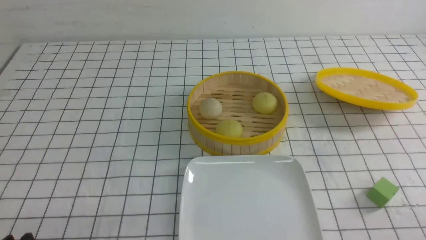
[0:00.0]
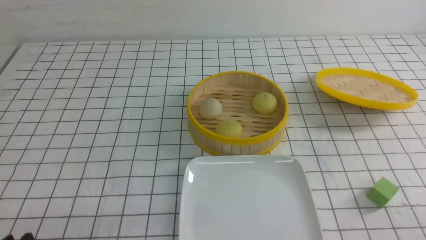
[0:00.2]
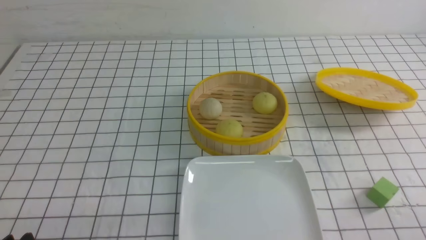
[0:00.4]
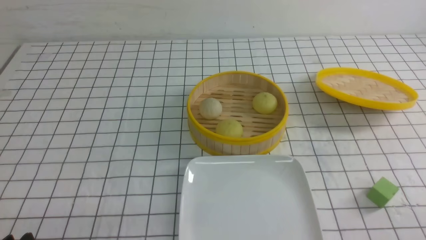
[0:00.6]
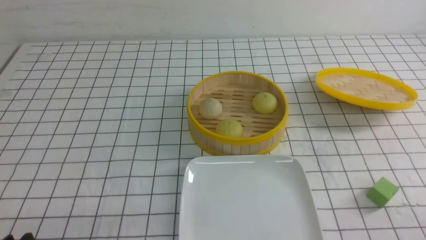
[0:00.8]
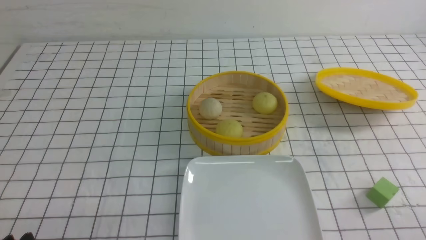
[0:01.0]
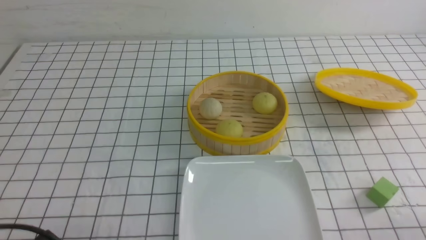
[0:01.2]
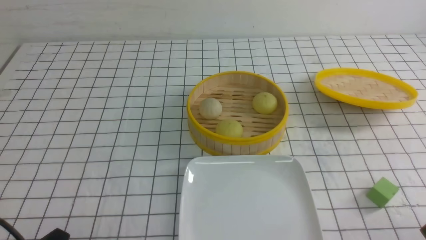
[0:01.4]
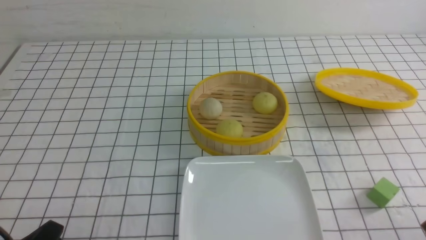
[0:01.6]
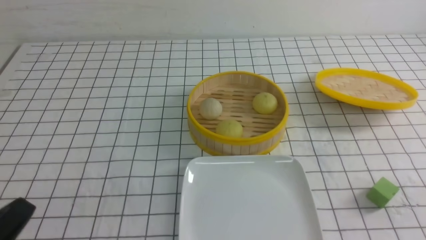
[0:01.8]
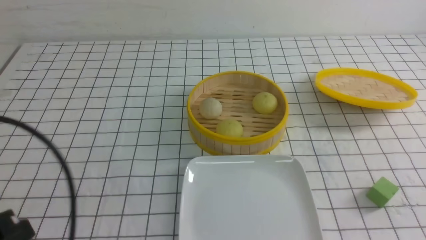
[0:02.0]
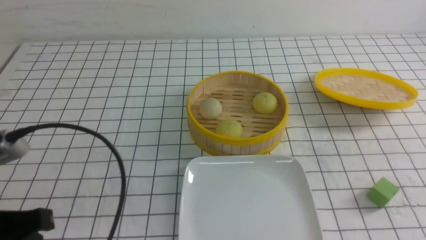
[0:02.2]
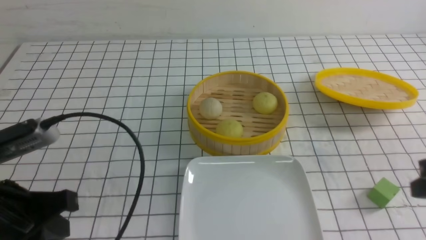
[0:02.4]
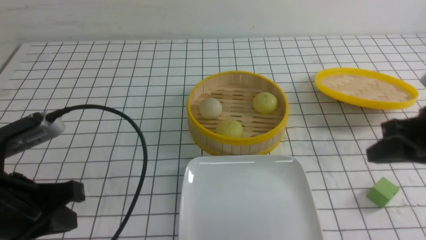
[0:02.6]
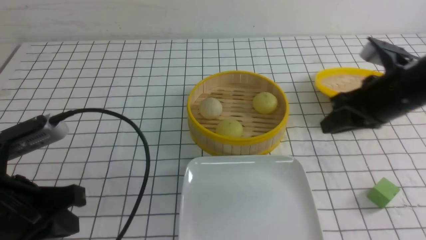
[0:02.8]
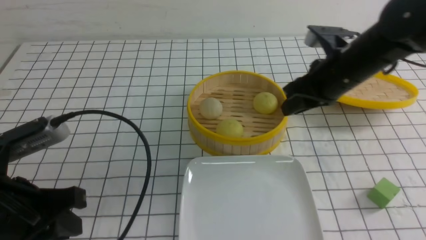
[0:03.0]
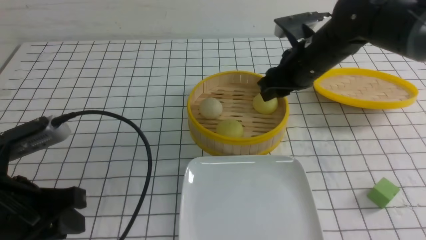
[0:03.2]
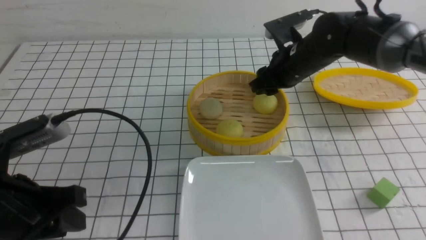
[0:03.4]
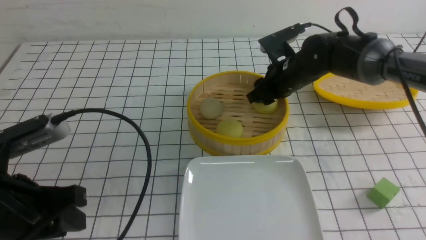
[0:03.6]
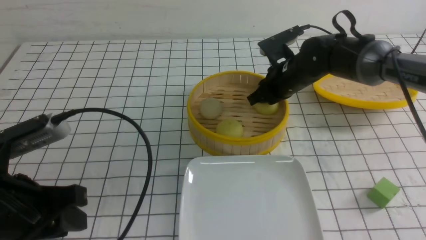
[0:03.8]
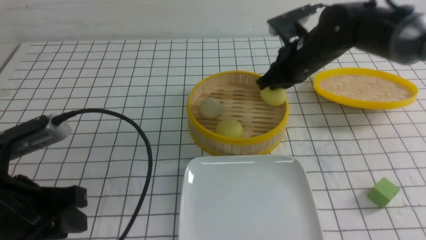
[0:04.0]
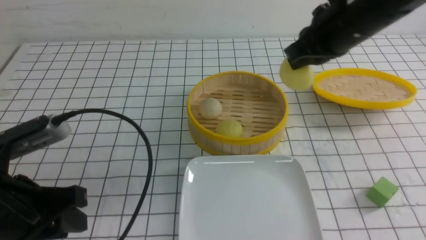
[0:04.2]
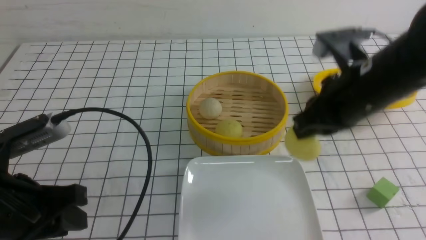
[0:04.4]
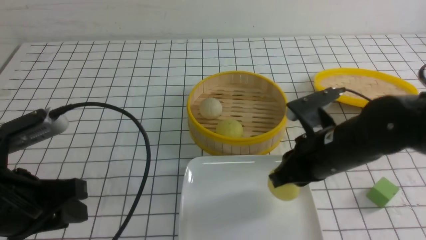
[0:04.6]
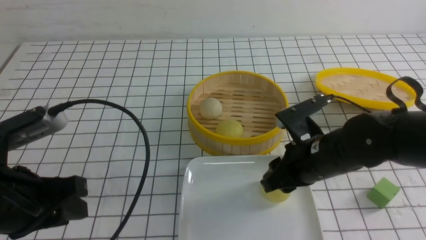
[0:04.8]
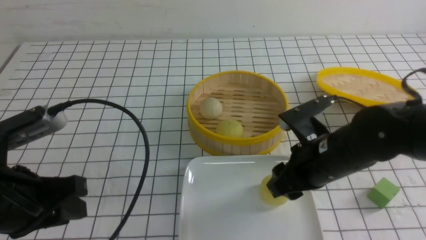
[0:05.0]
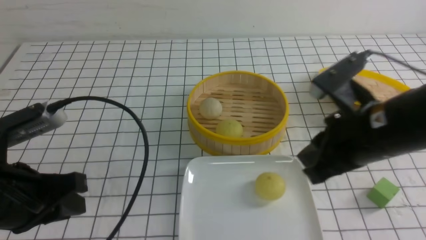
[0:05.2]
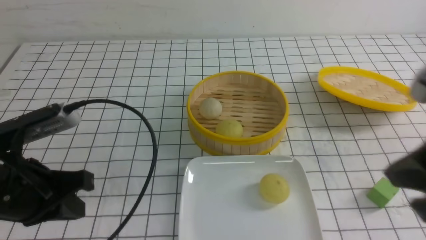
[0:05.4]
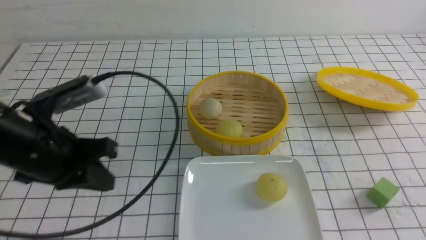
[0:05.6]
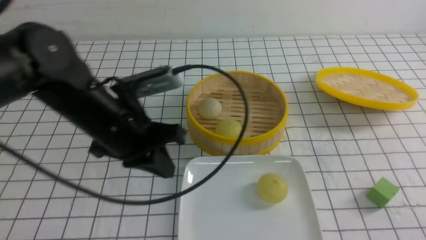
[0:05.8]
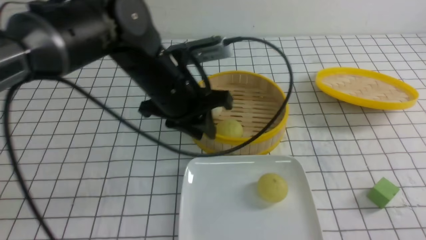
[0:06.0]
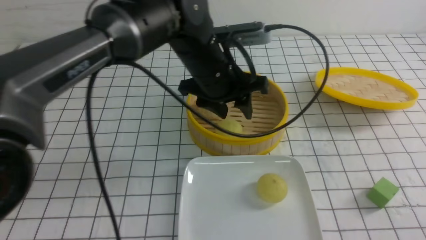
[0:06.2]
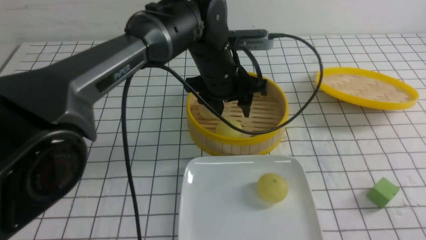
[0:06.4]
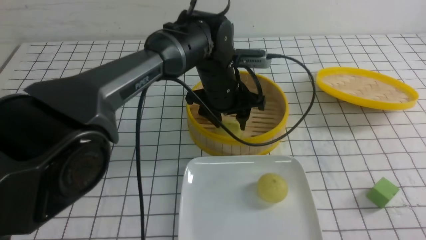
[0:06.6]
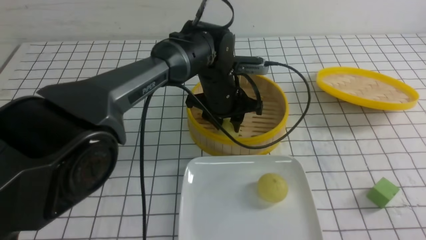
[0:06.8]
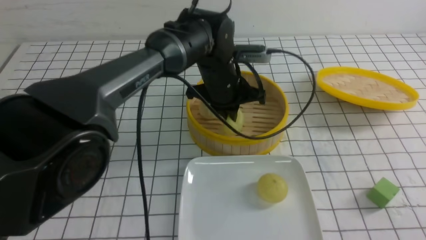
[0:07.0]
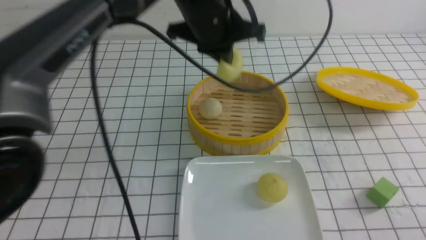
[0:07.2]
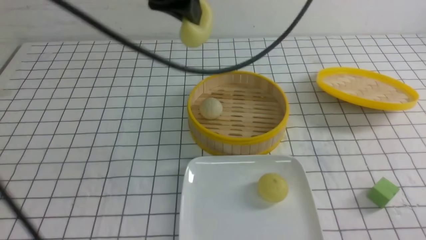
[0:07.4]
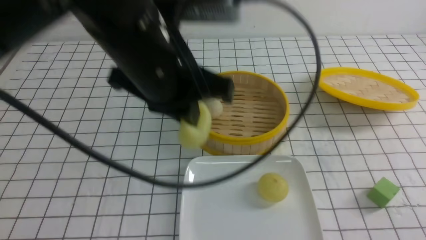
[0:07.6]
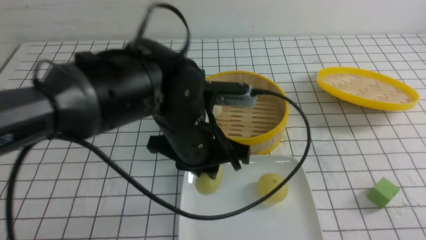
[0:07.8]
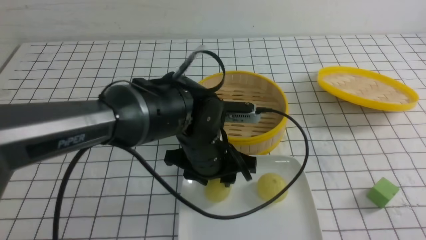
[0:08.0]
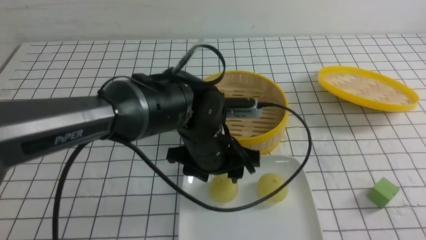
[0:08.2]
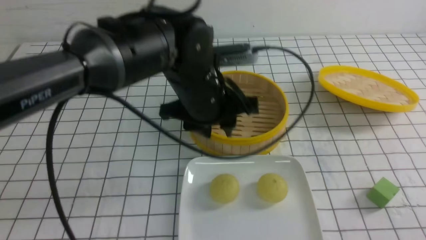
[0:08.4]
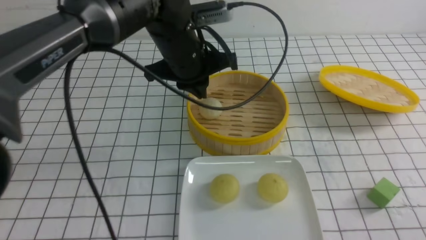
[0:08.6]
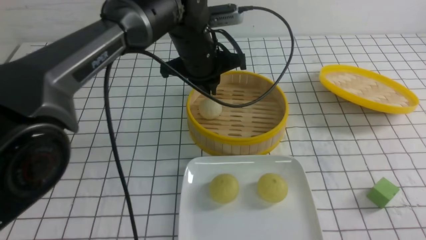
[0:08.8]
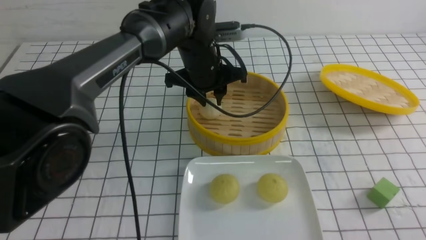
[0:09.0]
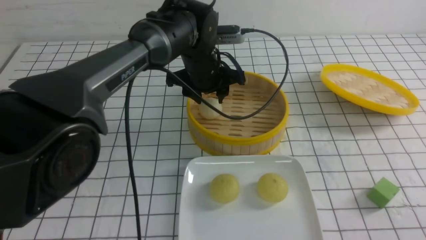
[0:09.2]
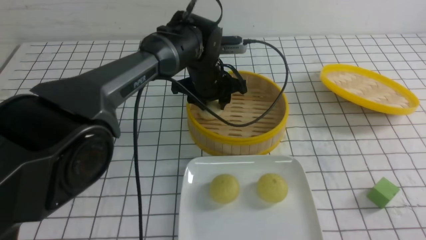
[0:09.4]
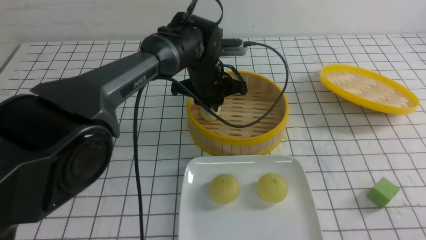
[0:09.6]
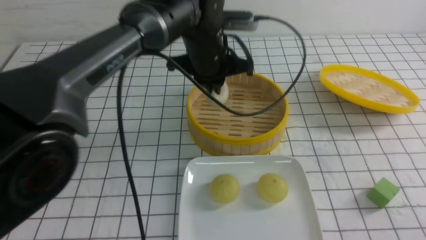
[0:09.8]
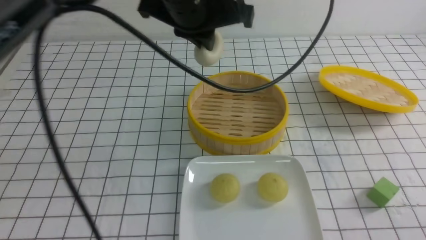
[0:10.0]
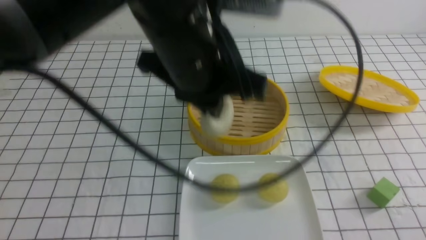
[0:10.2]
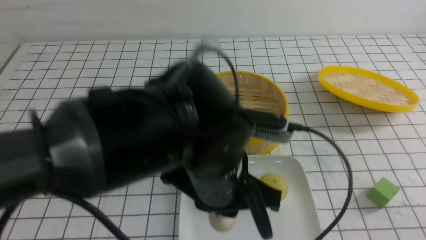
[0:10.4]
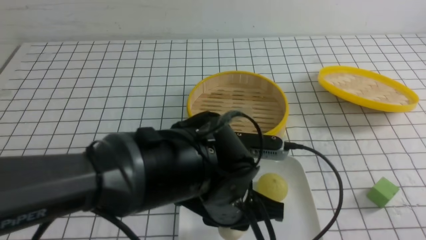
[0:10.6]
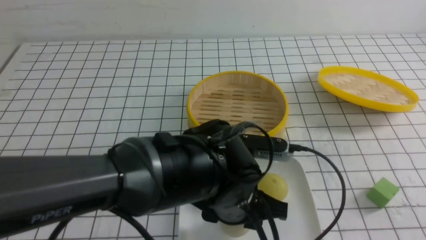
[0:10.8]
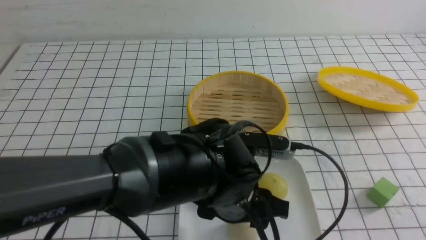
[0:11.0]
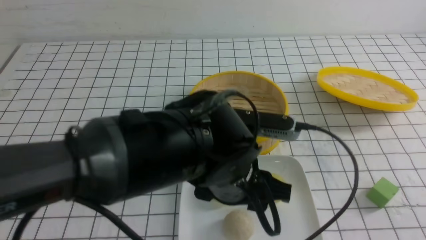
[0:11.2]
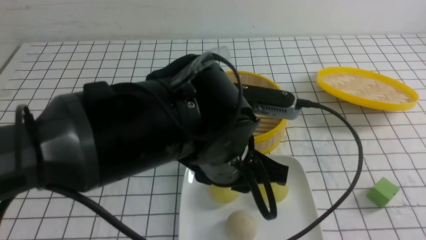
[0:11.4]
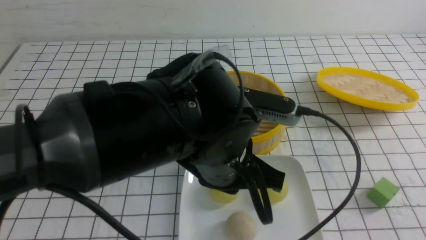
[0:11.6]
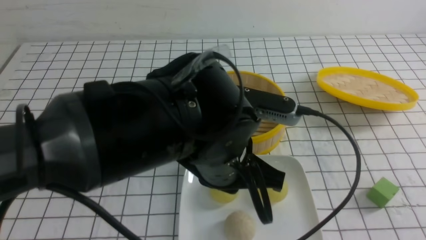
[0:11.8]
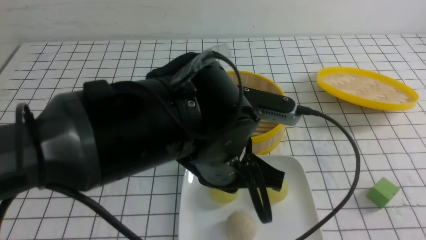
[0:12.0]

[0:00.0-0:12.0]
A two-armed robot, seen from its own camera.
Step, 0:00.0 to 0:04.0: use the right arm to grab the steamed stuffed bun that is closest to it.
Step, 0:04.2 to 0:05.2: use the right arm to put the steamed stuffed bun into the plate.
Step, 0:05.4 to 0:06.8: use the left arm to grab the steamed stuffed bun that is closest to it.
Step, 0:07.2 to 0:08.2: use the left arm to put the steamed stuffed bun into the plate.
Step, 0:08.4 to 0:09.8: use the left arm to grab the steamed stuffed bun that is closest to it.
Step, 0:10.0 to 0:11.4: use the left arm to put the steamed stuffed bun into the plate.
0:01.6 to 0:03.0: The left gripper heads forward and upward, covering some 10 cm, and closes and opens again. The right gripper moves forward, about 30 cm, and closes, then reopens.
0:03.0 to 0:04.4: The right gripper moves backward, some 5 cm, and closes its fingers.
0:04.4 to 0:06.0: The left gripper goes roughly 25 cm to the right and forward, and closes and opens again. Meanwhile the right gripper heads backward and to the right, covering about 25 cm, and opens, then closes again.
0:06.0 to 0:07.6: The left gripper moves up and down over about 20 cm, changing direction 2 times, and closes up.
0:07.6 to 0:09.0: The left gripper goes about 15 cm forward and downward, and opens up.
0:09.0 to 0:10.4: The left gripper travels backward by approximately 20 cm, and closes its fingers.
0:10.4 to 0:12.0: The right gripper closes up. The left gripper reaches some 5 cm downward, then returns, and opens, then closes once more.

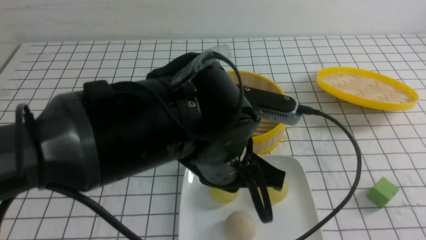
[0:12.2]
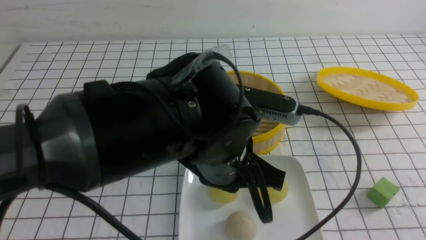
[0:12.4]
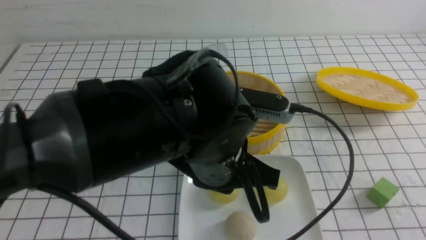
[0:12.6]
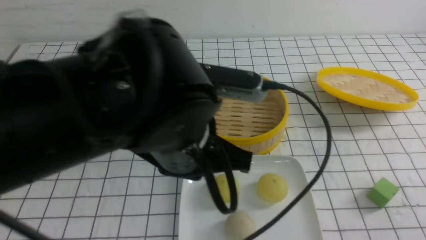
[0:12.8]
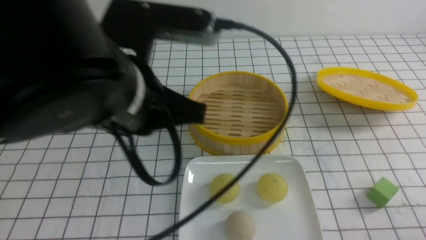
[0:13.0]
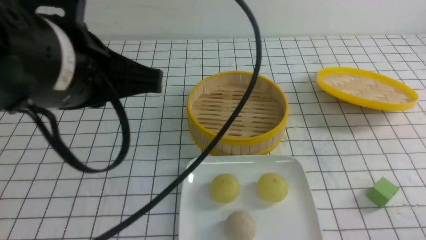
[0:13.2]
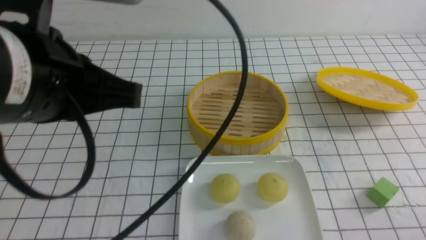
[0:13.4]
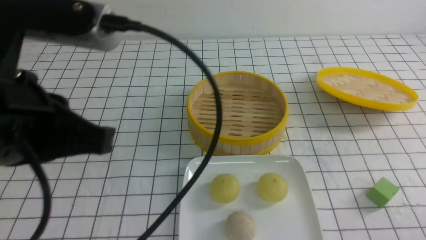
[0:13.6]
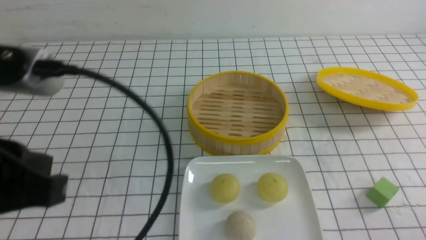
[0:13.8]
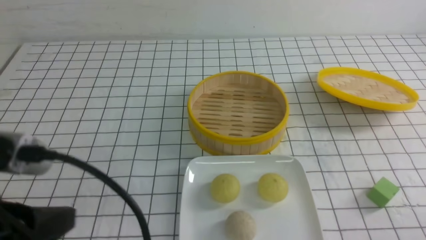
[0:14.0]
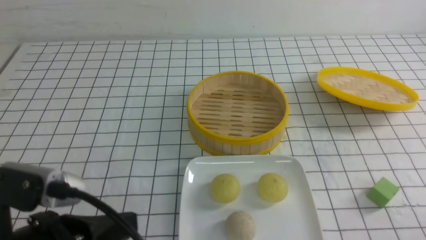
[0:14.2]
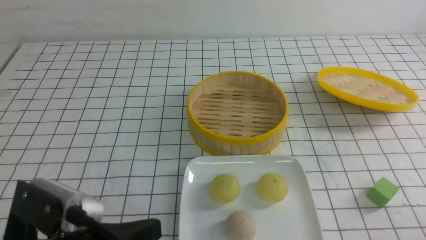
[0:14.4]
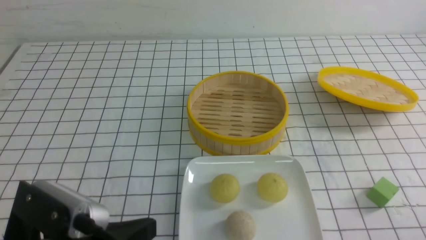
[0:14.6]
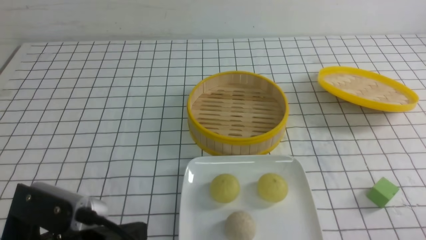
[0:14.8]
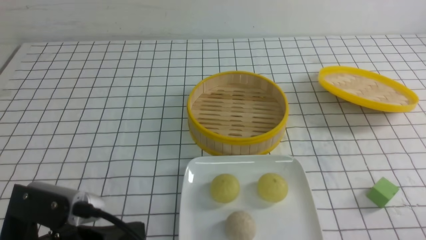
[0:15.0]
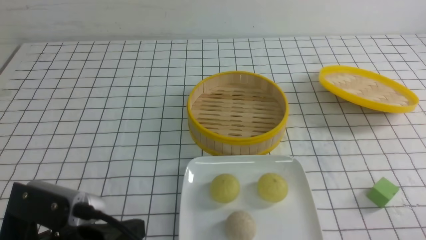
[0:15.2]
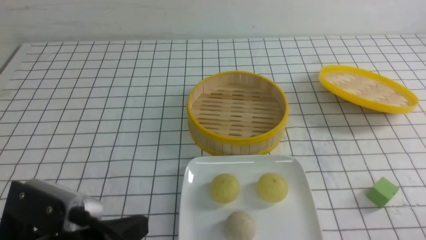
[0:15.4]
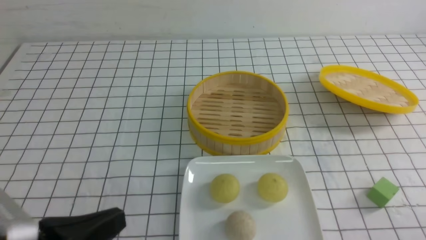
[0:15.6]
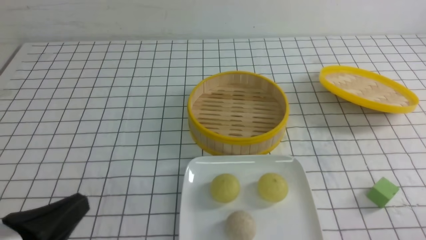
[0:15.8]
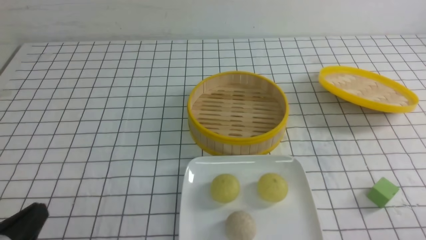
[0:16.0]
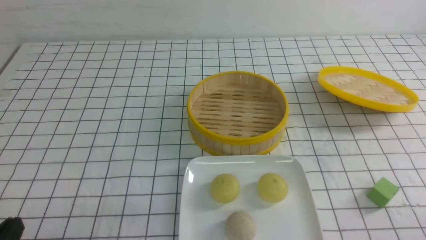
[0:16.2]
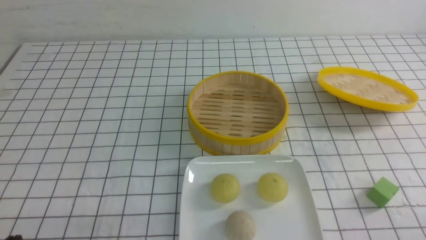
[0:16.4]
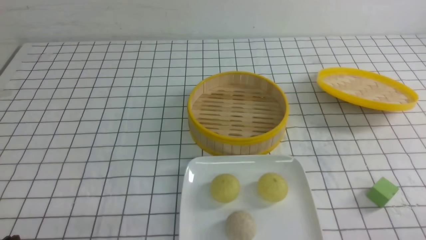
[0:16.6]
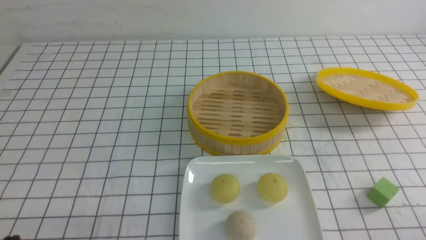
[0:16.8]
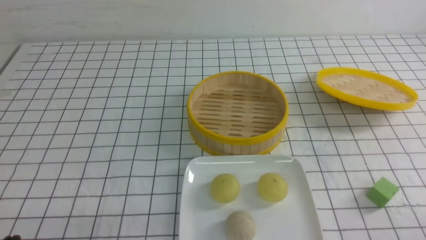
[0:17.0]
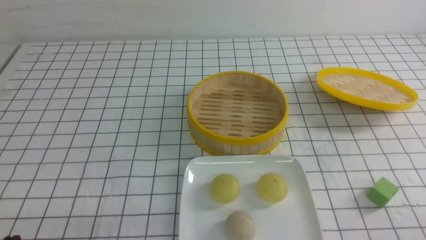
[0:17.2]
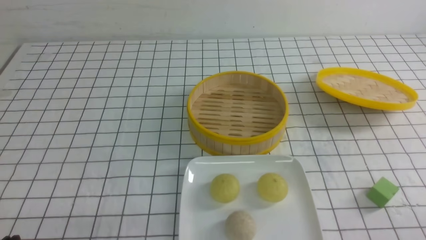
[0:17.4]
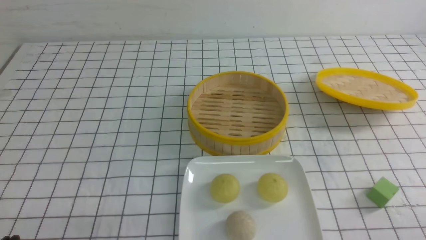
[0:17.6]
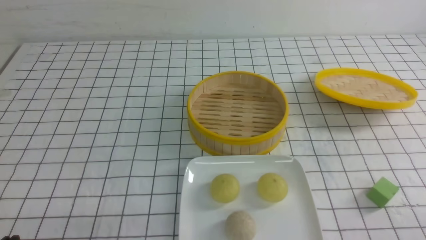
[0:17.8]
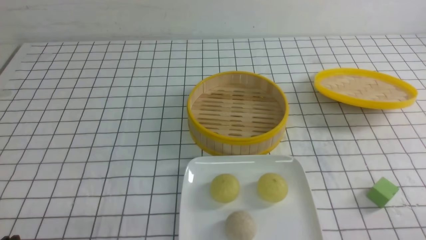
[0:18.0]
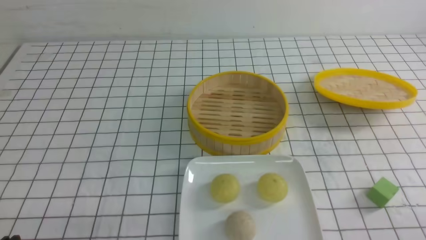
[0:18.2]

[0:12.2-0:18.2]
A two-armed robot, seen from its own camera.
0:12.2 to 0:13.8: The right gripper goes some 10 cm downward. The left gripper goes roughly 25 cm to the left, backward and upward.
0:13.8 to 0:15.2: The left gripper moves downward, about 10 cm.
0:15.2 to 0:16.6: The left gripper heads to the left and downward, covering approximately 10 cm.
0:16.6 to 0:18.2: Both grippers stay put.
